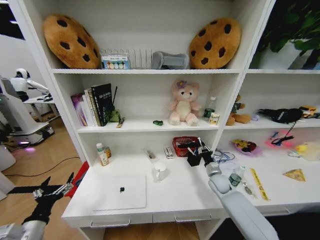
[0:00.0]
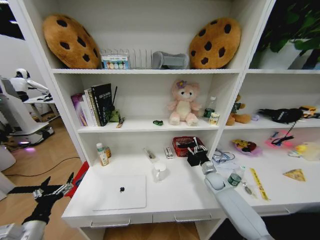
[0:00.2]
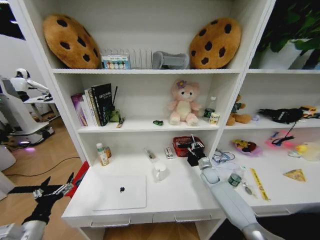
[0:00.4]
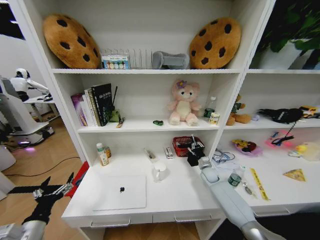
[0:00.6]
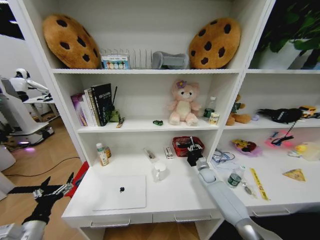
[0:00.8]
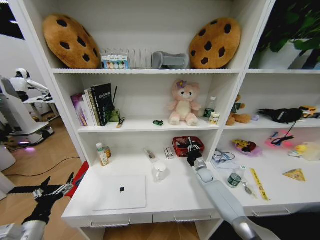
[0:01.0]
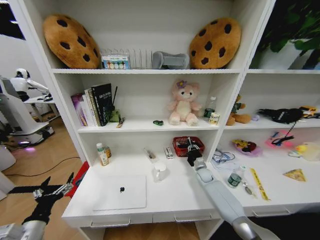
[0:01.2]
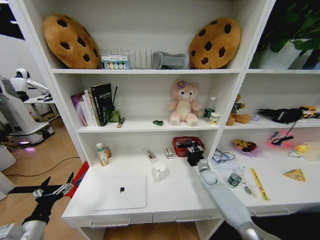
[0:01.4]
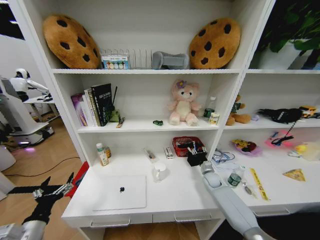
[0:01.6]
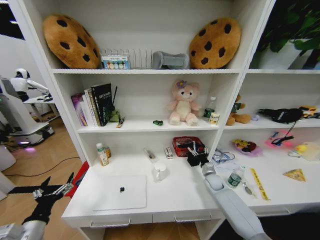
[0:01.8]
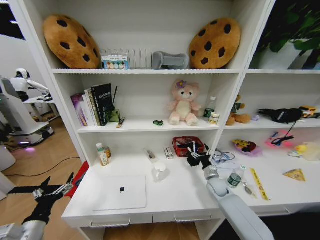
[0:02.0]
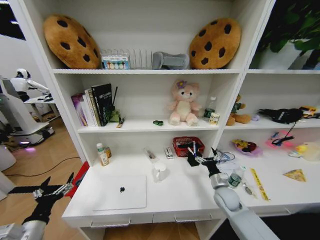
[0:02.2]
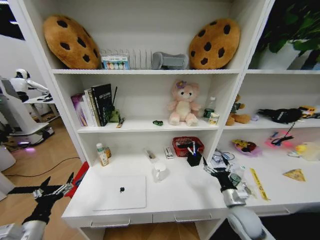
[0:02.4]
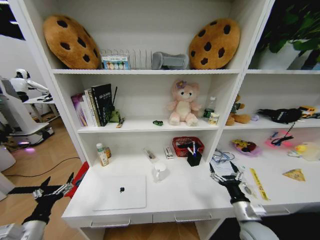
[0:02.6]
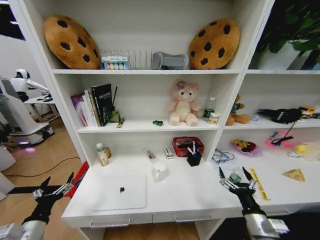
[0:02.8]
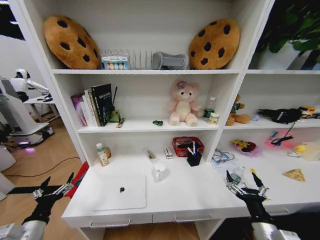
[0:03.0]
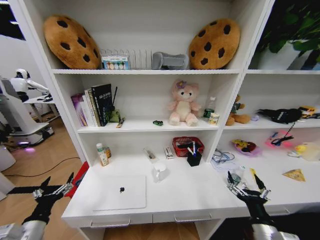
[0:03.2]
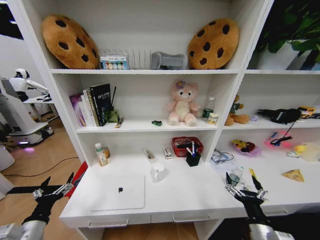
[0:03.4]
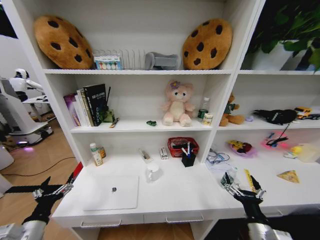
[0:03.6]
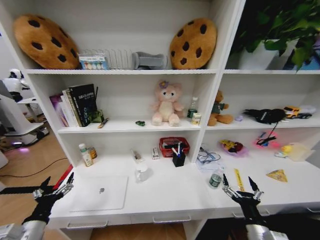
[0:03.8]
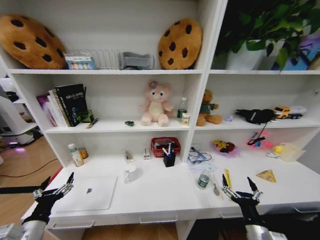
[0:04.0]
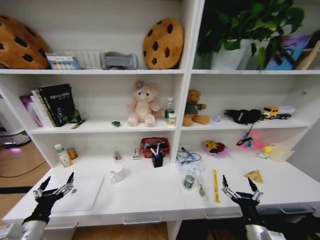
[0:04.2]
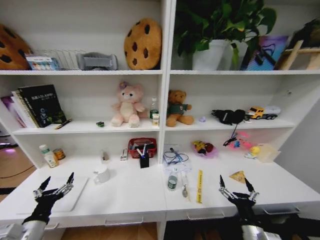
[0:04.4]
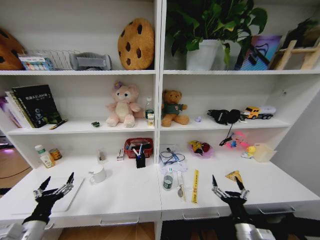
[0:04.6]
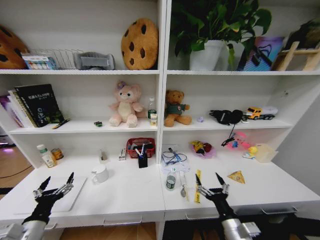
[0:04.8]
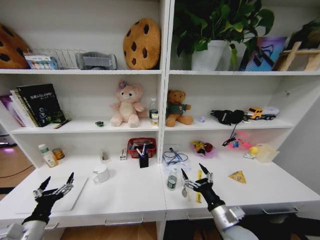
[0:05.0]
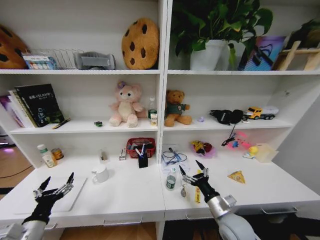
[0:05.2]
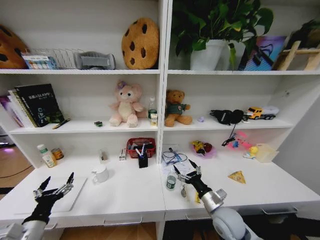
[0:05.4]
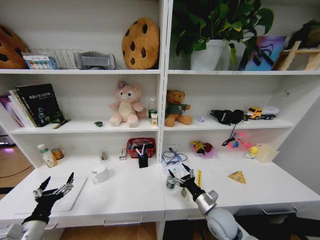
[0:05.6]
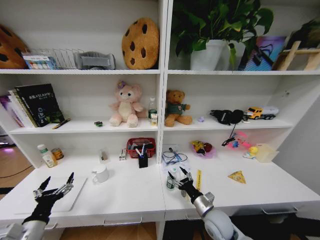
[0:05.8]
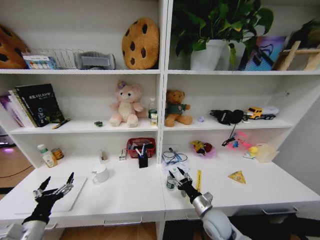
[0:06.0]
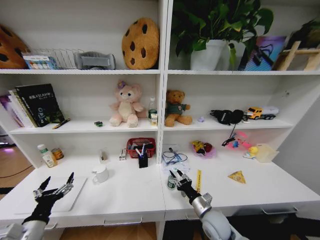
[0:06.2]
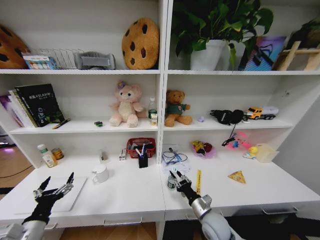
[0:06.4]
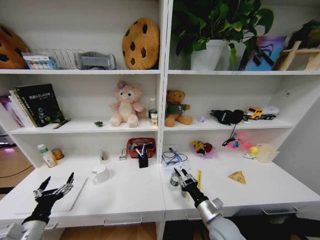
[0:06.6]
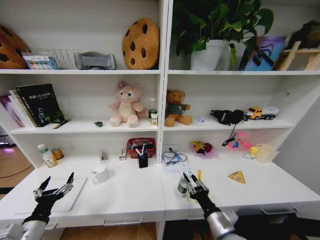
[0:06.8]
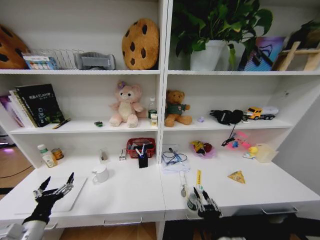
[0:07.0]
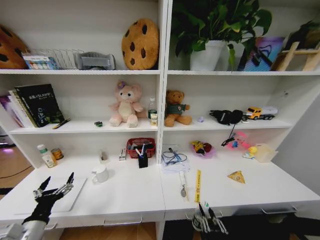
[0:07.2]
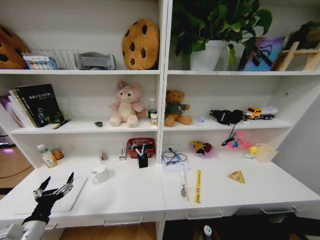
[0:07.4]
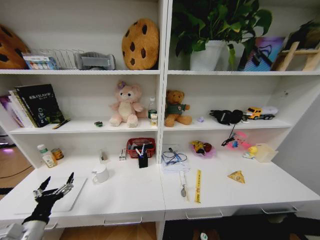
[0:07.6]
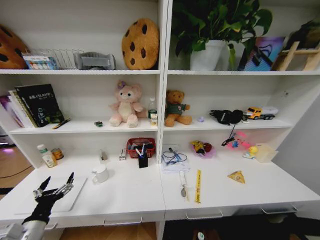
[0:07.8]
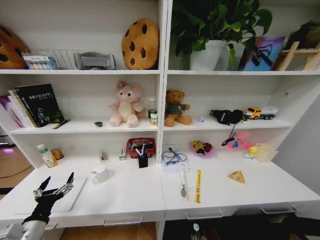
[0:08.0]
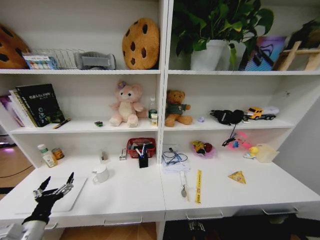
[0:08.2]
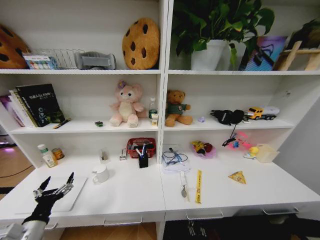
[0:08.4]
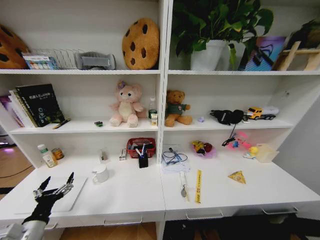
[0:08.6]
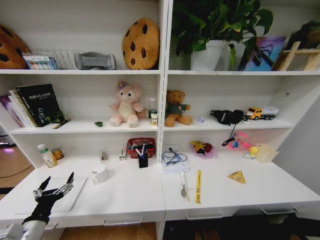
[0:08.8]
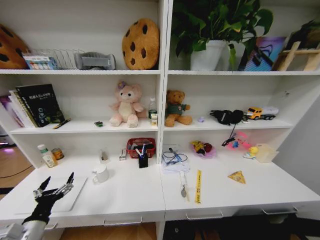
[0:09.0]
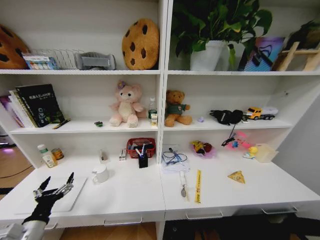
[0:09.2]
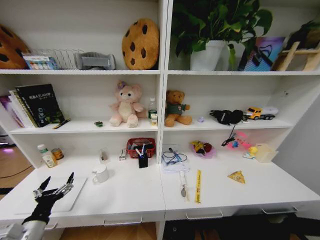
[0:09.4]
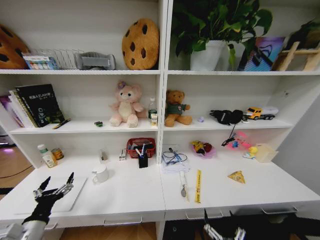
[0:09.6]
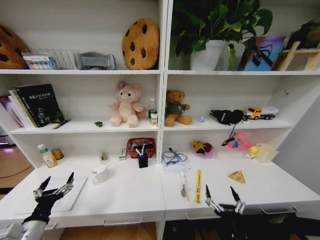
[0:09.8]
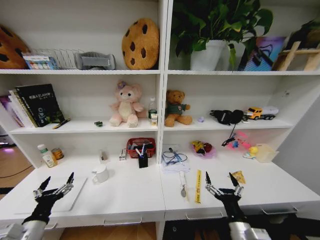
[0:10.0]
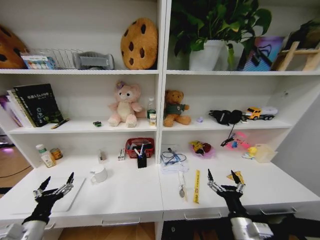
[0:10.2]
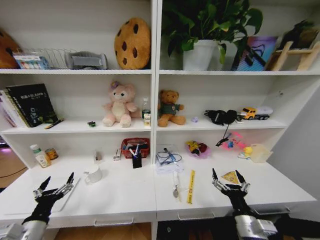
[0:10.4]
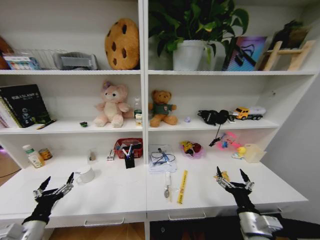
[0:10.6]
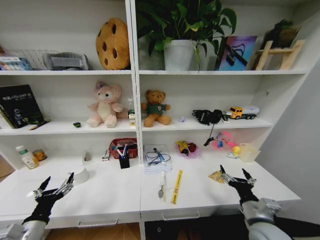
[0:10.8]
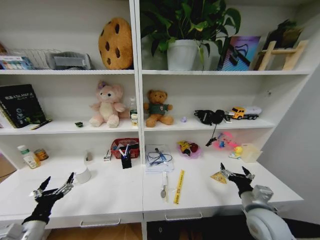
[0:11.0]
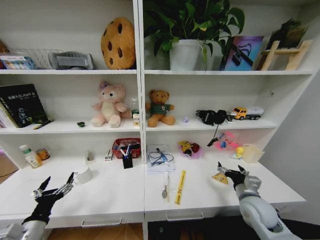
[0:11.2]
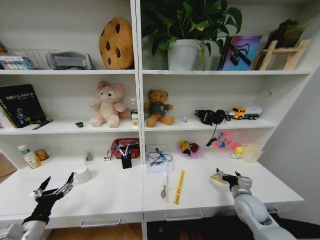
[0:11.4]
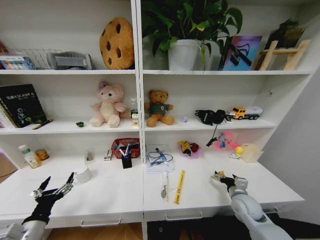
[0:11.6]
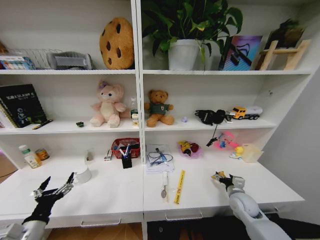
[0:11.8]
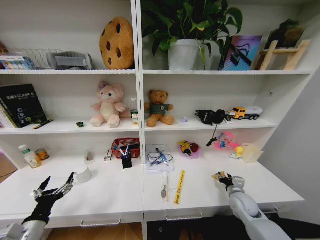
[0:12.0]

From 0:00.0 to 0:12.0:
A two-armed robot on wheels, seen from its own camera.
Task of the whole recording: Organize the objects on the table.
From 0:00.0 to 0:01.6: The right gripper travels downward and forward by approximately 10 cm, and opens its fingers.
From 0:01.6 to 0:03.0: The right gripper goes approximately 35 cm backward, and opens.
From 0:04.4 to 0:06.0: The right gripper heads forward and to the left, covering some 15 cm.
From 0:06.0 to 0:07.6: The right gripper moves backward and downward, about 30 cm, and closes.
From 0:09.0 to 0:10.4: The right gripper goes about 35 cm upward and forward.
From 0:10.4 to 0:12.0: The right gripper travels forward and to the right by some 20 cm, and closes its fingers.

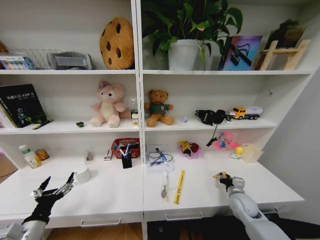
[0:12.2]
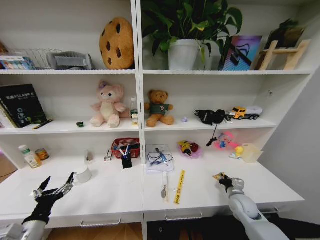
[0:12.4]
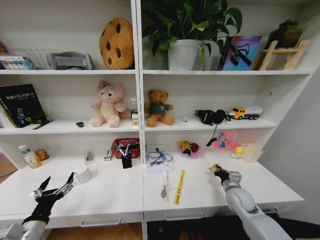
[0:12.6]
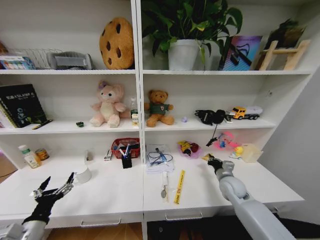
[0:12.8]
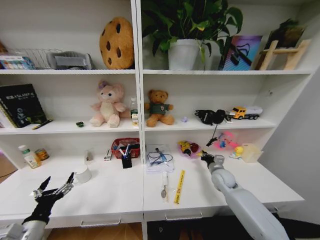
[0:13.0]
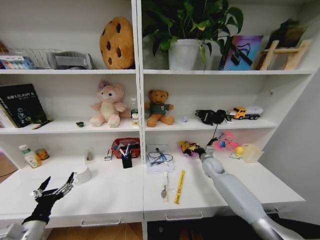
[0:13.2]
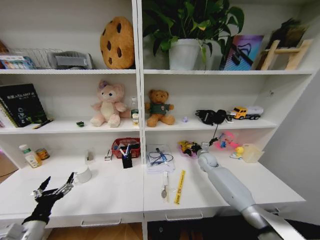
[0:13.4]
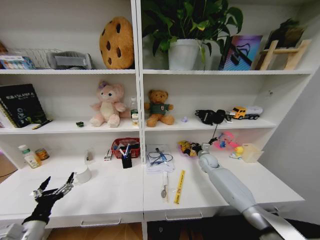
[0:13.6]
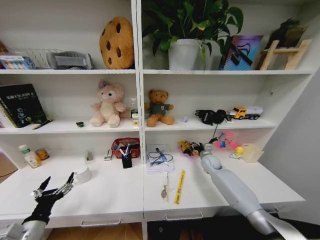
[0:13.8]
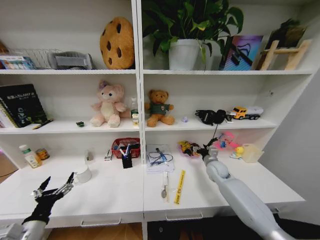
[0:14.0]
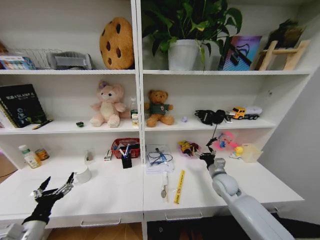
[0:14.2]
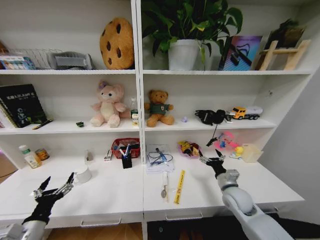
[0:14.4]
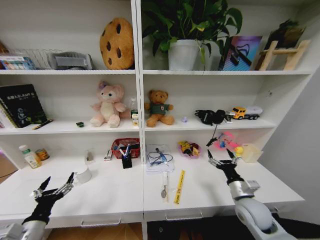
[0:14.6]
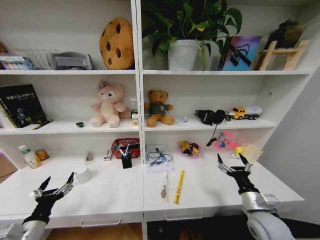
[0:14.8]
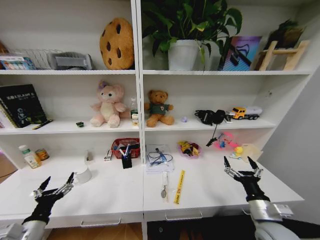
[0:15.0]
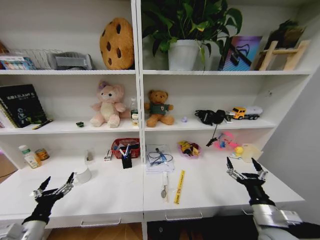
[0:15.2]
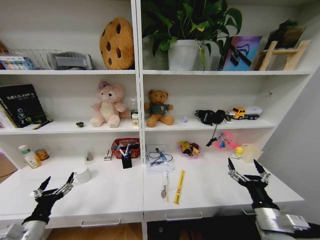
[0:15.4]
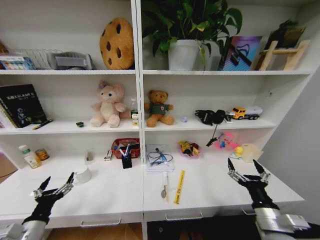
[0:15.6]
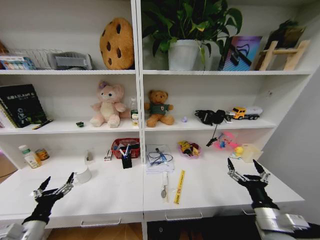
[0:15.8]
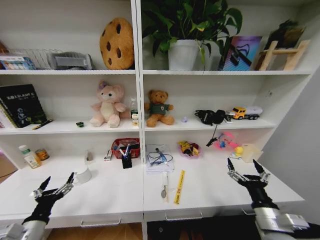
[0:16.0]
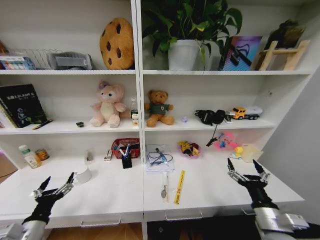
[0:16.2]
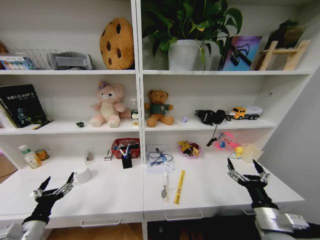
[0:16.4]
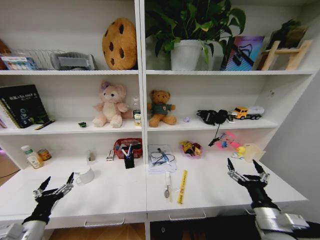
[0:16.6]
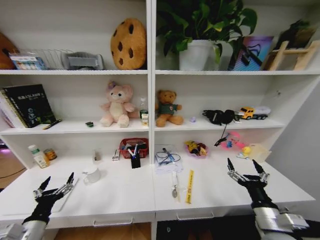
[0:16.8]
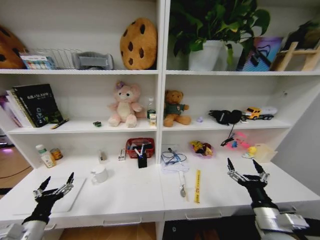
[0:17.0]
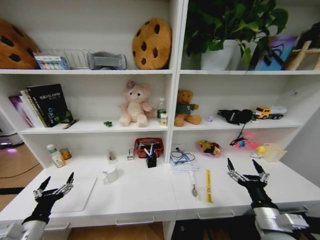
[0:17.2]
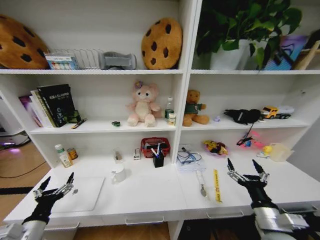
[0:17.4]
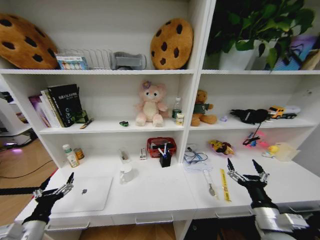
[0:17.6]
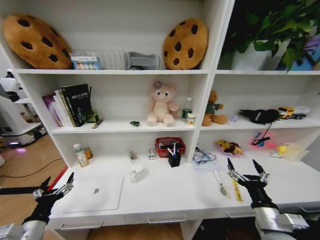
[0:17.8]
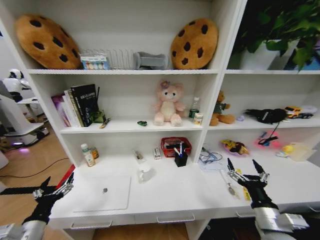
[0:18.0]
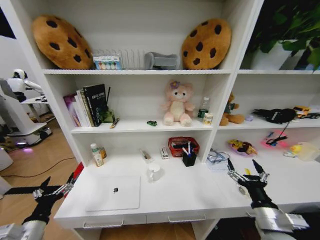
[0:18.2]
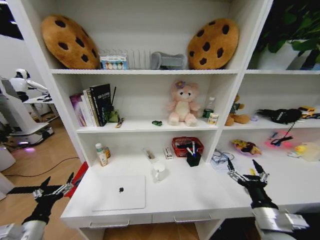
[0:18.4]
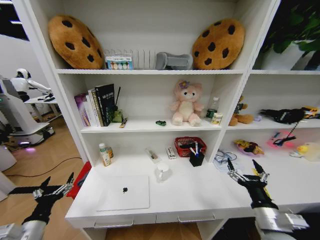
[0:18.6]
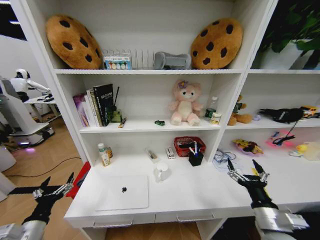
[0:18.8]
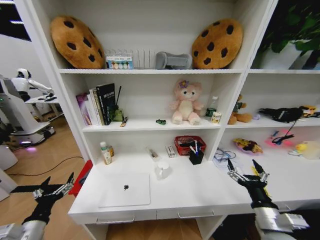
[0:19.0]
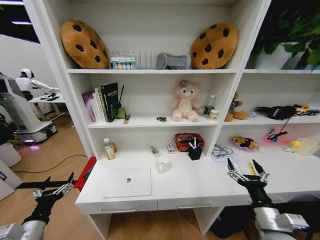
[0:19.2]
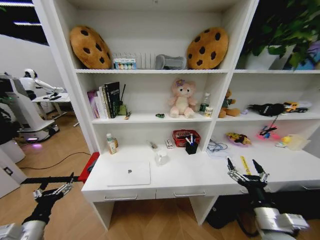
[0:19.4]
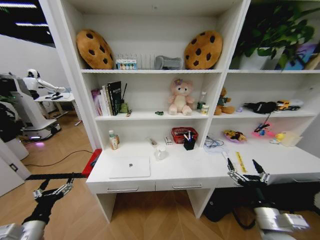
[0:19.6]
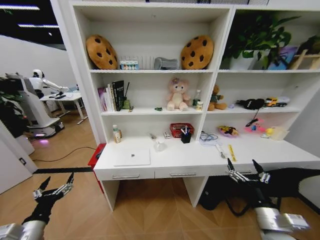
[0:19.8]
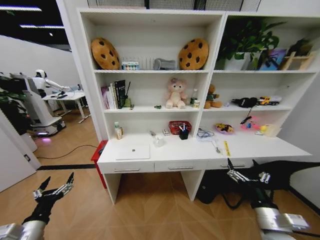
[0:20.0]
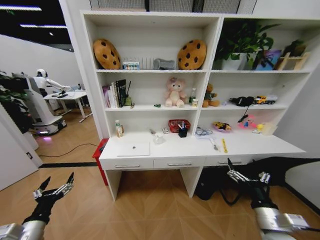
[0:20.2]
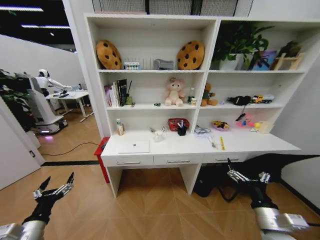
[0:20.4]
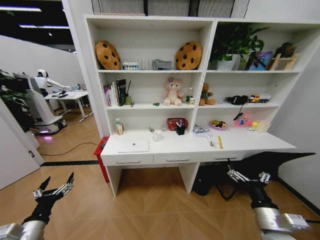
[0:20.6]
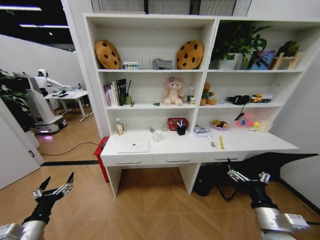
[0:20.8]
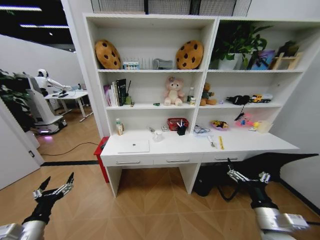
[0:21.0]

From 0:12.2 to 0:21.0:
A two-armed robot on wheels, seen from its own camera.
Task of the whole recording: Organize the objects on the table.
From 0:12.2 to 0:13.6: The right gripper travels forward by about 20 cm.
From 0:13.6 to 0:15.2: The right gripper heads backward, covering some 35 cm, and opens.
From 0:15.2 to 0:16.6: There are only small adjustments of the grippers.

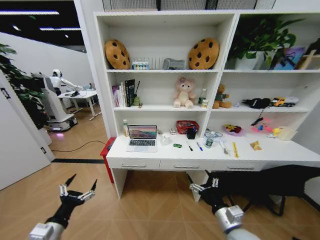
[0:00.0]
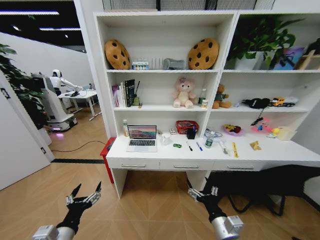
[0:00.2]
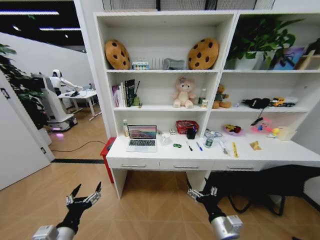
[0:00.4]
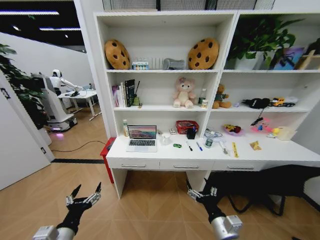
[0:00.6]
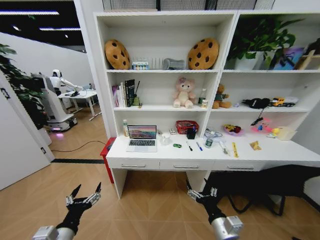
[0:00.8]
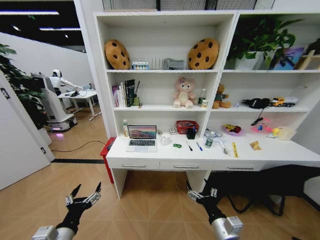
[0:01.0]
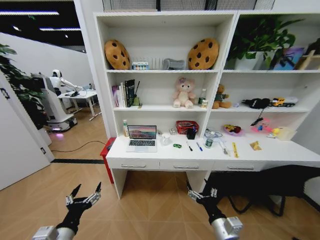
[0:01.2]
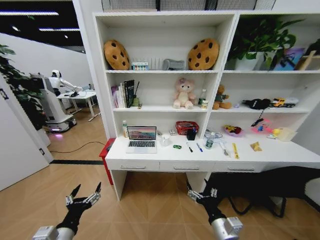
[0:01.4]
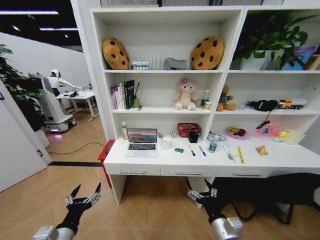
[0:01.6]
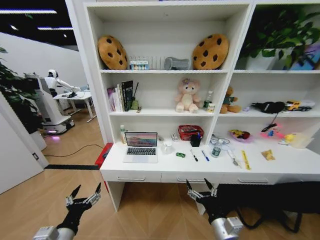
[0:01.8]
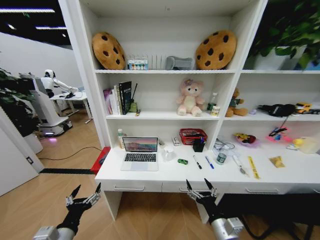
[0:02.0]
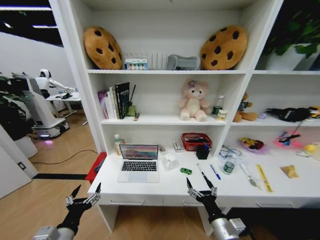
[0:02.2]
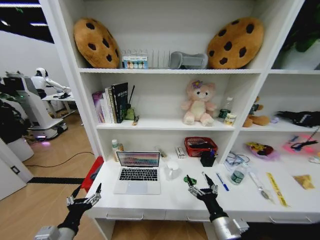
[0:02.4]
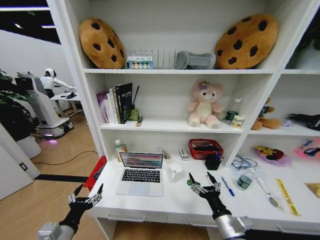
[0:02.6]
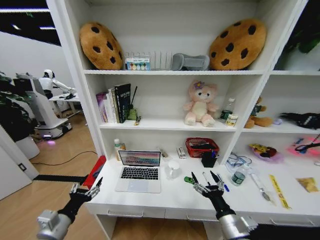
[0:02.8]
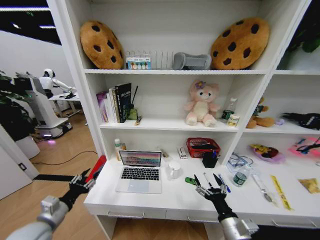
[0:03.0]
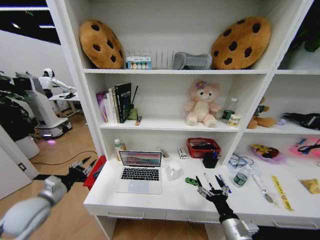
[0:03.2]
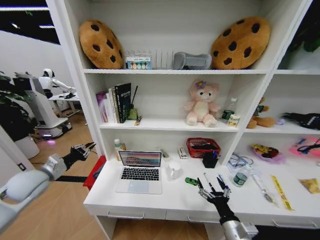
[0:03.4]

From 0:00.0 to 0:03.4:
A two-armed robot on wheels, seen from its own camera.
Task of the whole recording: Organize the objects on the table.
From 0:01.6 to 0:03.4: The left gripper is displaced forward, to the left and upward by some 25 cm, and closes its fingers.
